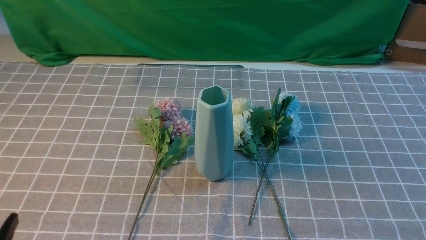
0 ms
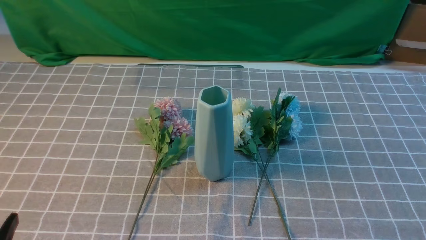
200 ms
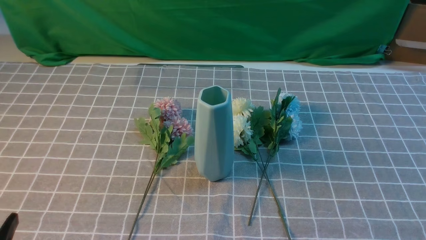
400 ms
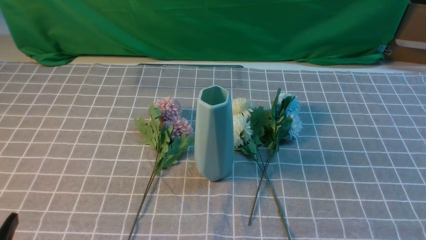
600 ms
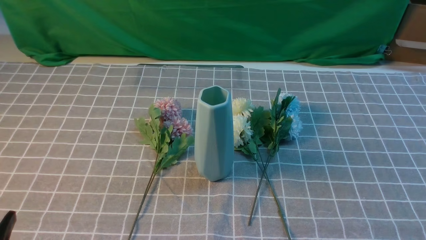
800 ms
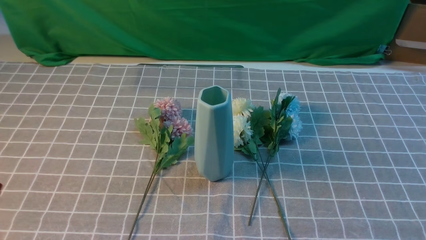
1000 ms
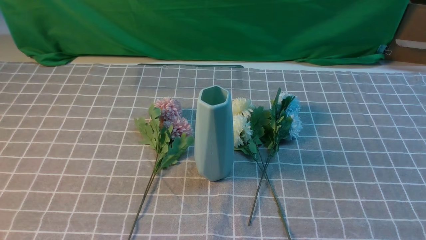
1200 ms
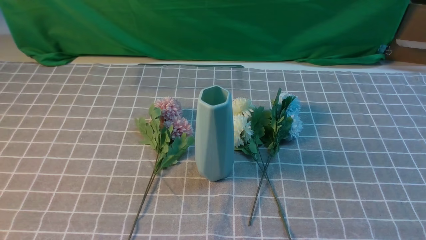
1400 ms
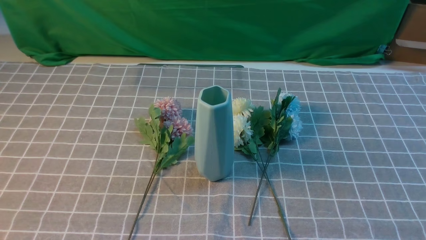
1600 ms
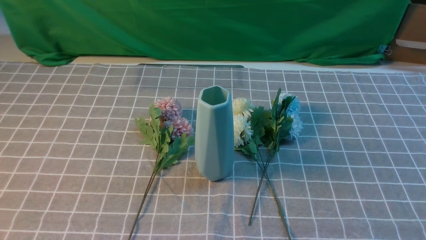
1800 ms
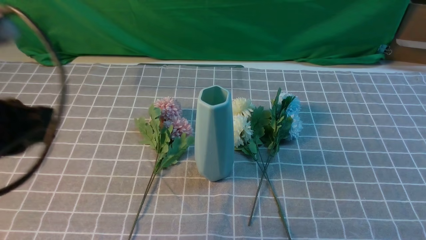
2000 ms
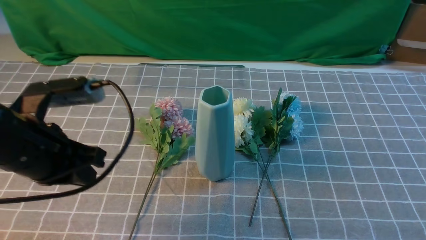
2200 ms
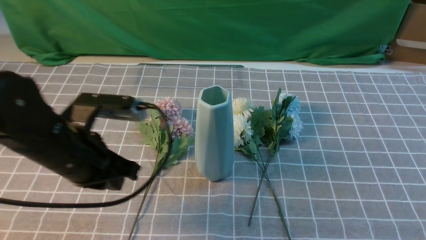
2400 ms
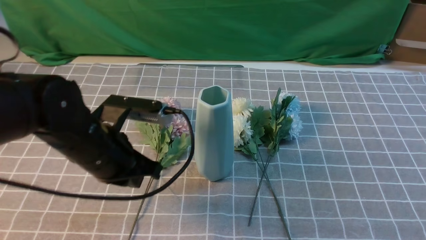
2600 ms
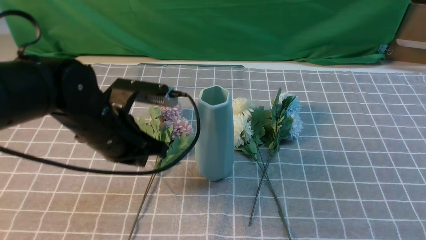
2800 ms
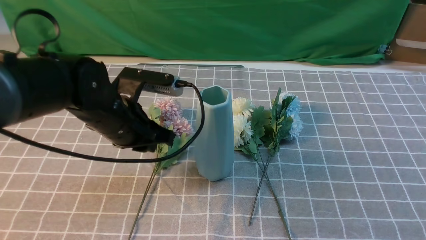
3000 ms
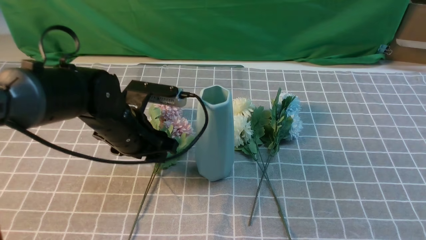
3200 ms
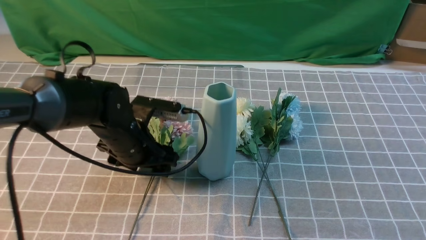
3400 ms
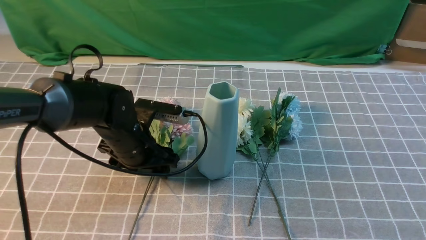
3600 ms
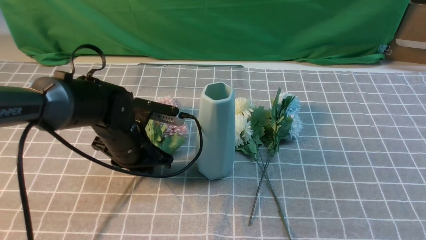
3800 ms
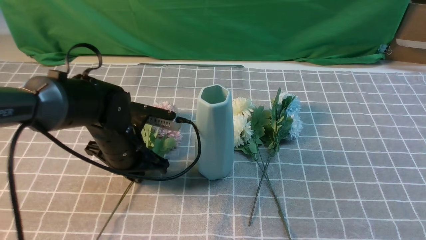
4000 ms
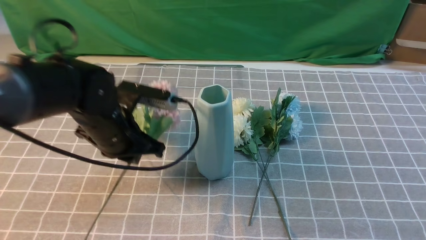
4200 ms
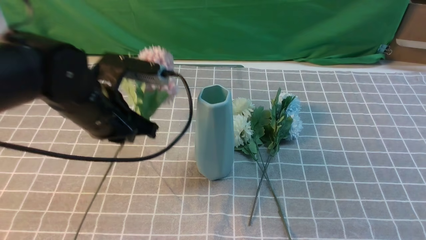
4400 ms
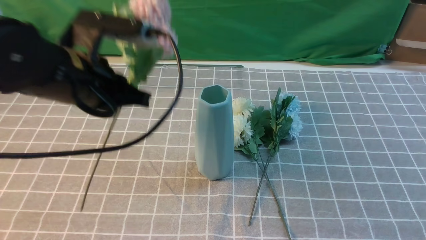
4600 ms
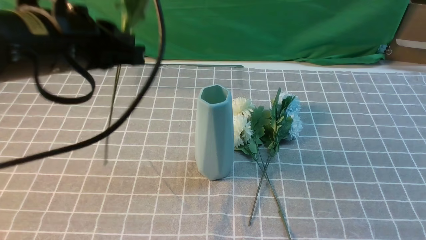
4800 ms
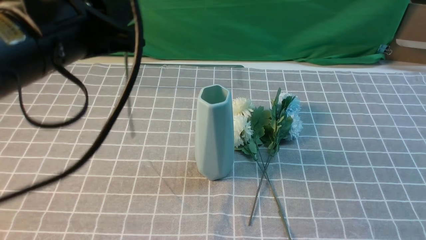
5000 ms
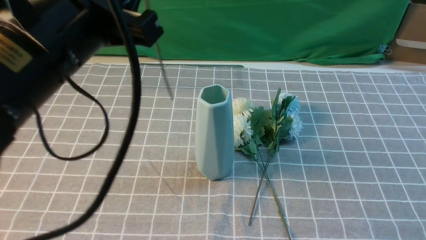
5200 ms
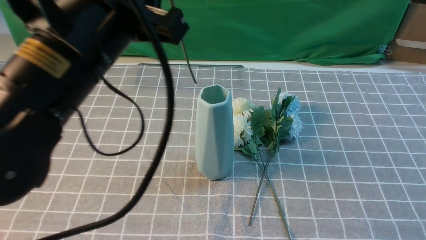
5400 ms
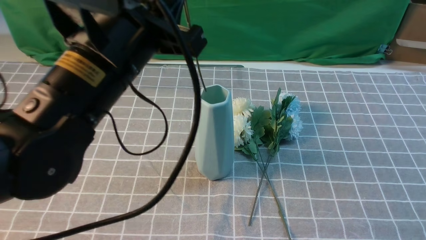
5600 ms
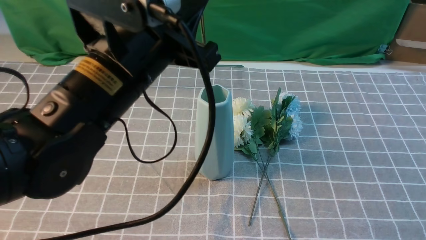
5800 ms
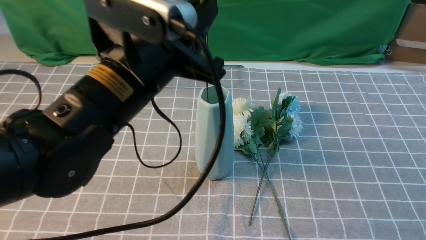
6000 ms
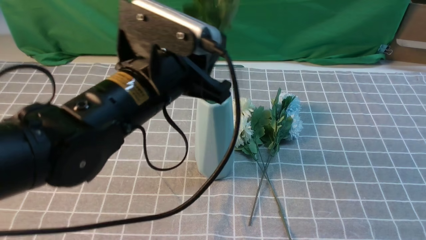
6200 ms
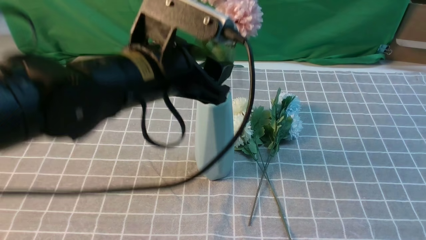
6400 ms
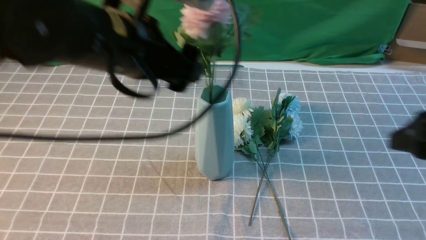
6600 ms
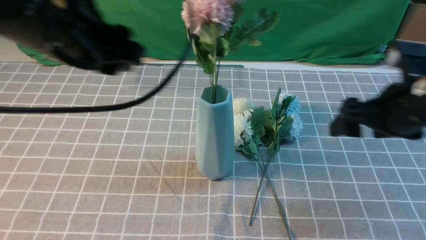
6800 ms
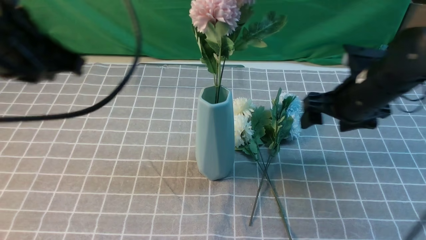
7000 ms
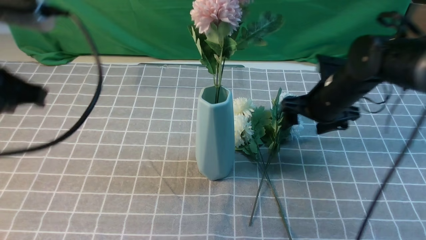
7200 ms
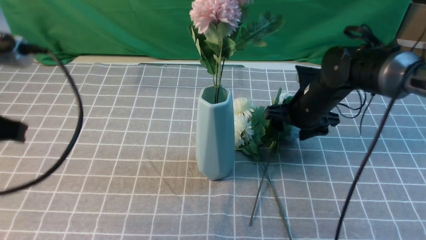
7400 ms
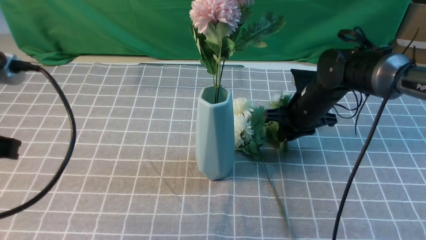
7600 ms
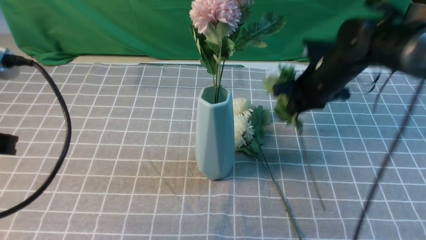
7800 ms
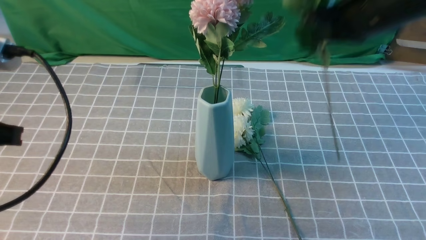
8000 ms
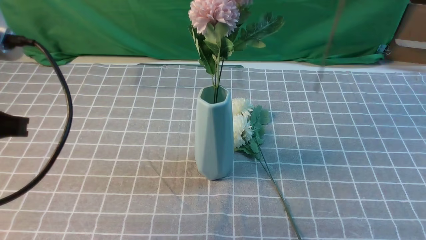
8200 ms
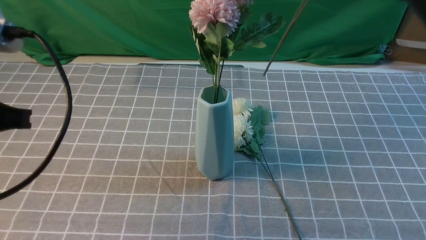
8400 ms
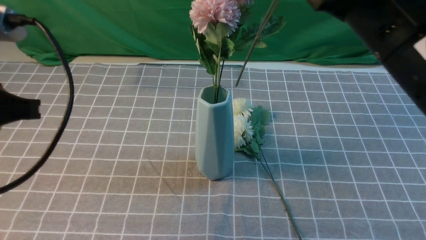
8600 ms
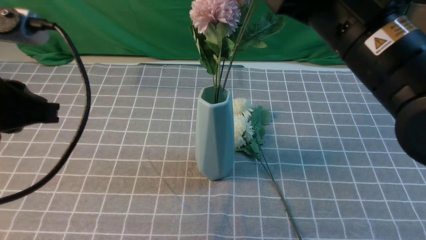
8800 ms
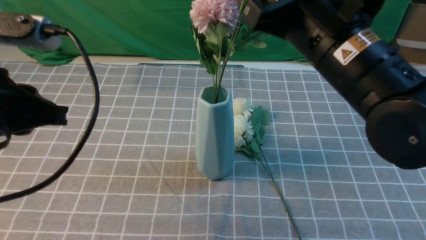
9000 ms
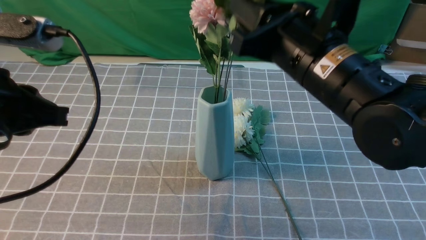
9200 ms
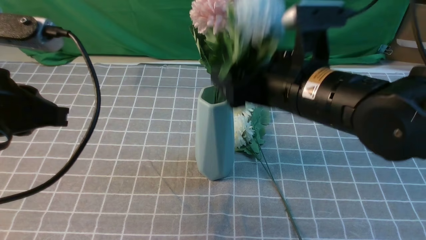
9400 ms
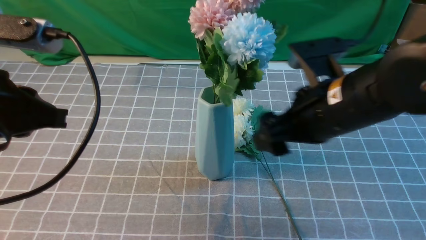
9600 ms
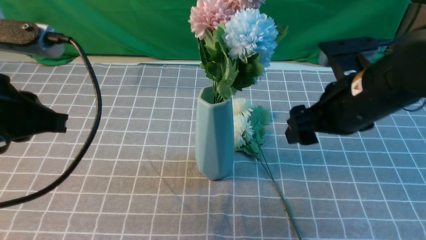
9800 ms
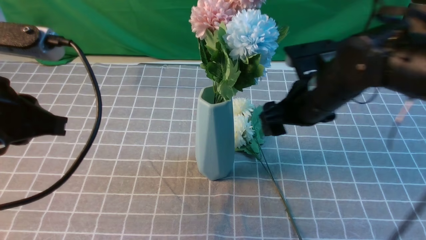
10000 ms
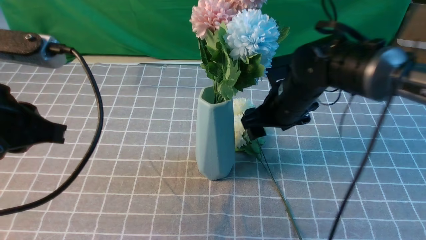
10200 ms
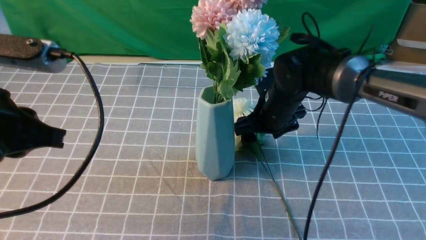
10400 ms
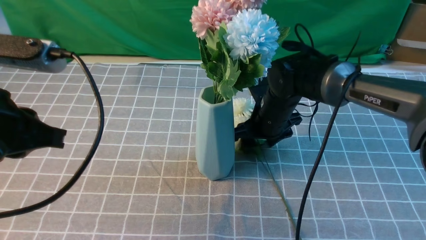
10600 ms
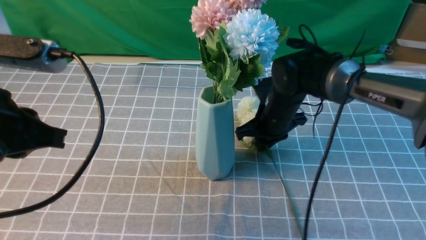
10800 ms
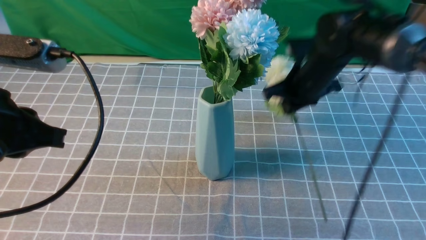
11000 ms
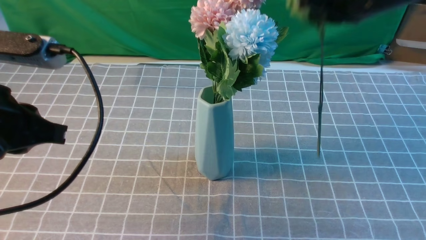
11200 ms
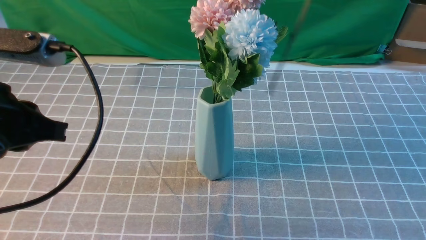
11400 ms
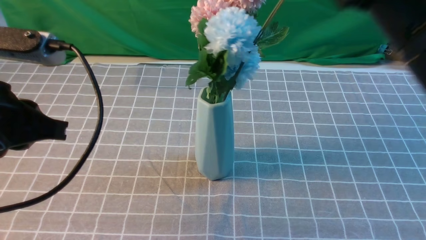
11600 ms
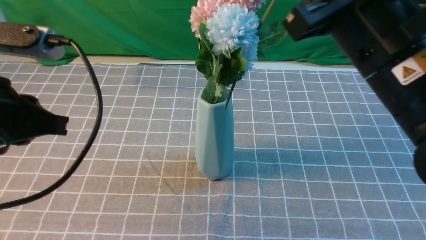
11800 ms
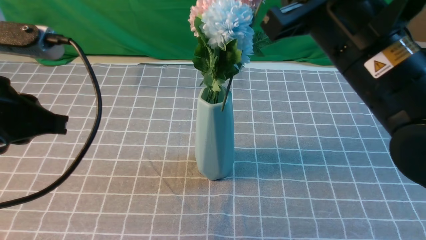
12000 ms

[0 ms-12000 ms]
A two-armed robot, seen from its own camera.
Task of the whole recording: insert the flowers into the vase on the table with the grey tablecloth.
Step, 0 ms to 3800 ms: use the left arm to grab a bunch of fresh flowers.
Step, 4000 ms to 6600 ms: use the left arm to insert the flowers into the vase.
Step, 6800 ms to 7600 ms: use the right arm to grab a bunch of fresh flowers.
Step, 7800 ms to 9400 ms: use the right arm to insert the flowers into the vase.
Step, 9600 ms to 10600 ms: use the right arm to grab a bunch of fresh flowers.
1600 ms to 3000 ms: The left gripper shifts approximately 30 cm forward and to the right. Meanwhile the right gripper shifts approximately 15 cm upward and forward.
3000 ms to 4400 ms: The left gripper moves upward, about 5 cm, and opens, then closes again.
4400 ms to 6000 ms: The left gripper heads to the right and upward, covering about 10 cm.
6000 ms to 7600 ms: The left gripper is displaced to the left and backward by some 20 cm, and opens, then closes once more. The right gripper moves forward, downward and to the left, roughly 35 cm, and opens, then closes again.
7600 ms to 9000 ms: The right gripper goes roughly 25 cm upward and backward.
9000 ms to 10400 ms: The right gripper moves downward and forward, roughly 25 cm, and opens up.
10400 ms to 12000 ms: The right gripper goes roughly 25 cm upward and backward, and closes.

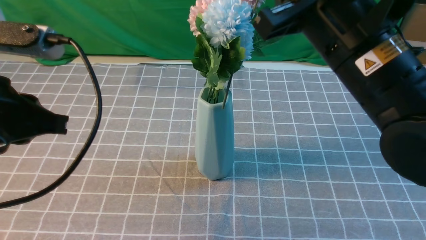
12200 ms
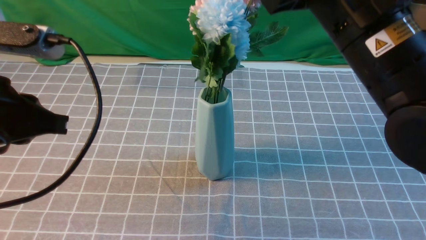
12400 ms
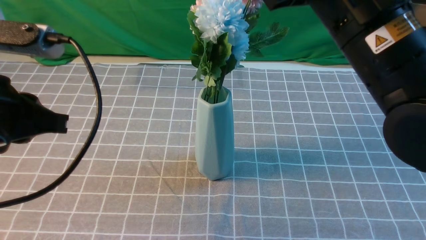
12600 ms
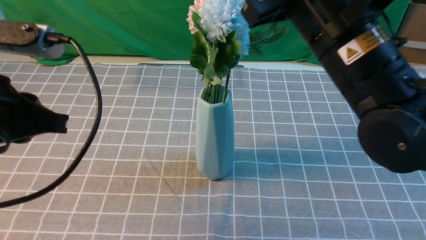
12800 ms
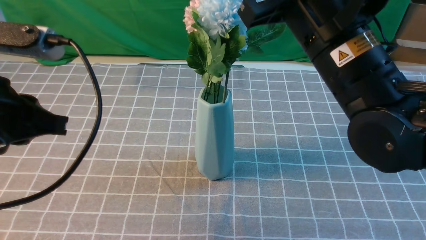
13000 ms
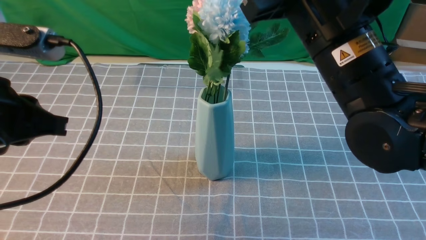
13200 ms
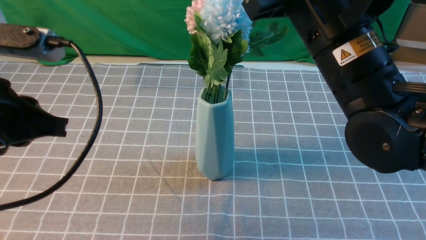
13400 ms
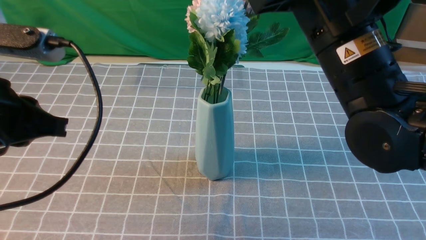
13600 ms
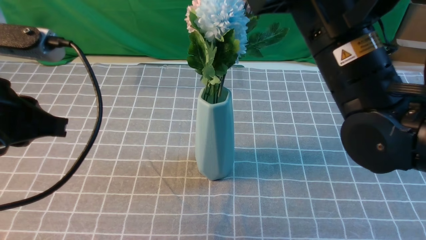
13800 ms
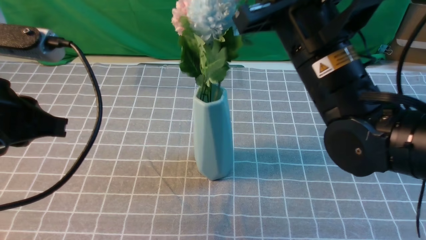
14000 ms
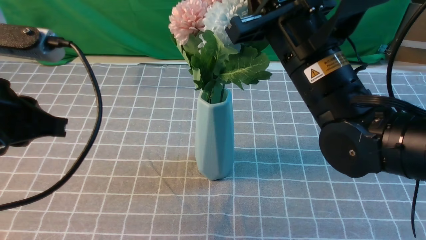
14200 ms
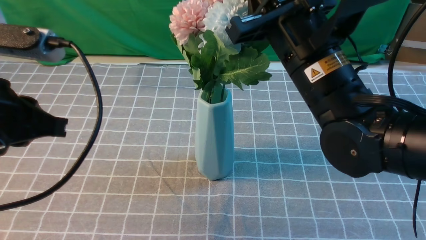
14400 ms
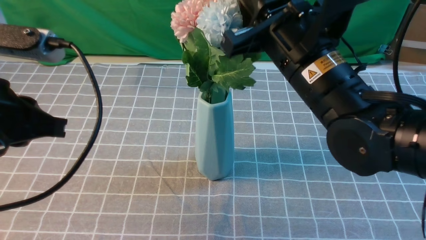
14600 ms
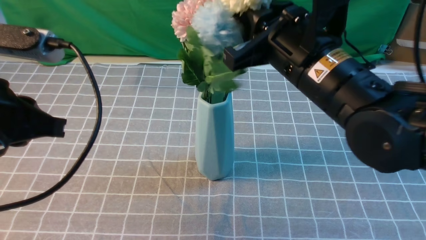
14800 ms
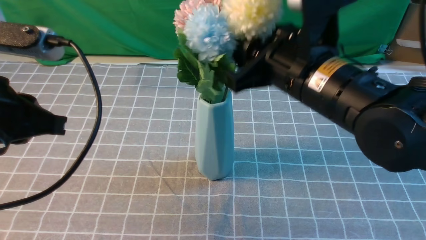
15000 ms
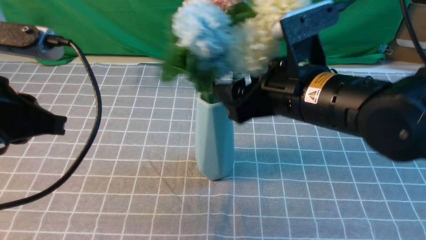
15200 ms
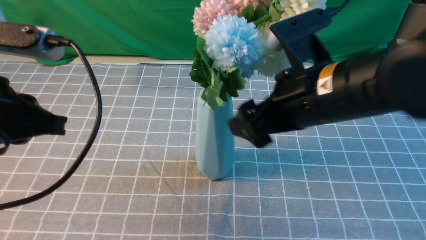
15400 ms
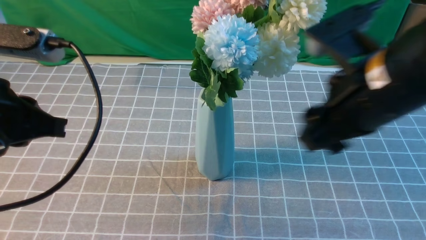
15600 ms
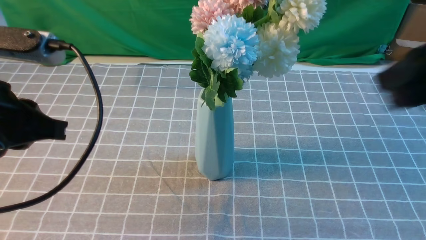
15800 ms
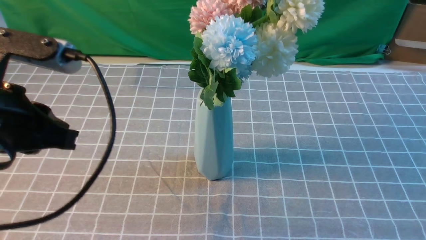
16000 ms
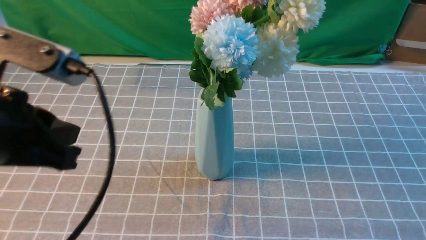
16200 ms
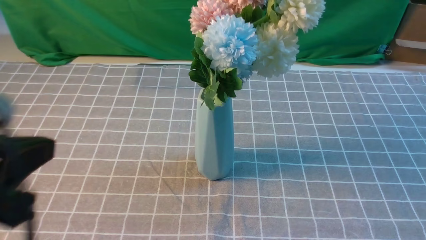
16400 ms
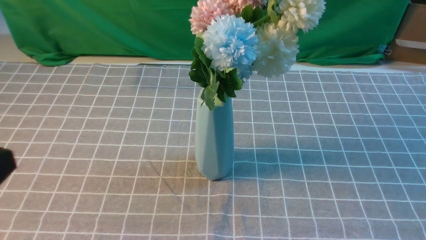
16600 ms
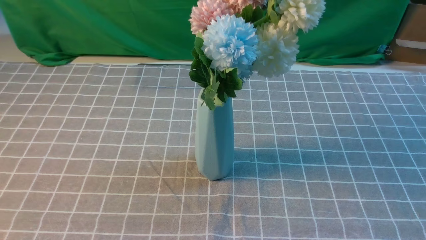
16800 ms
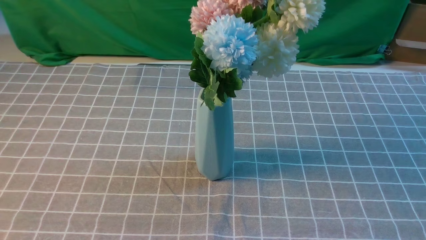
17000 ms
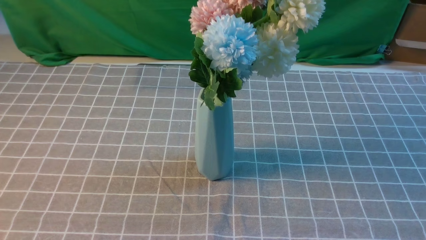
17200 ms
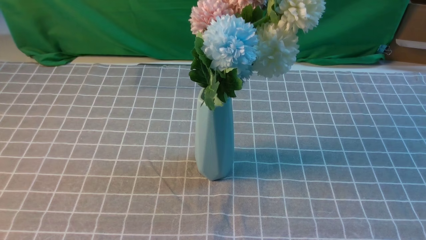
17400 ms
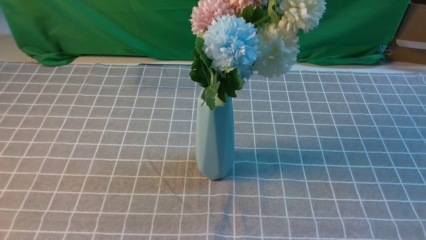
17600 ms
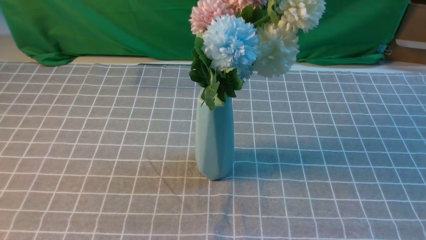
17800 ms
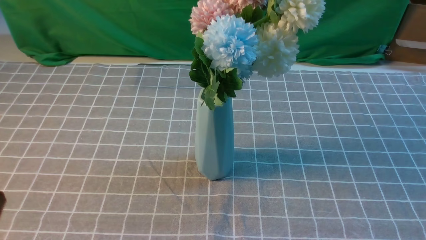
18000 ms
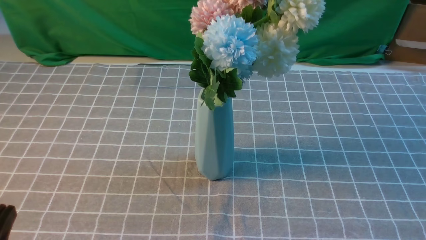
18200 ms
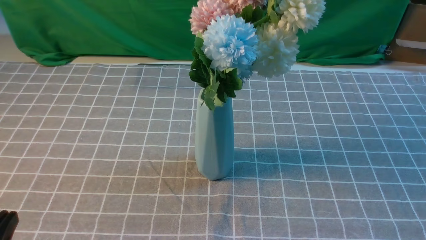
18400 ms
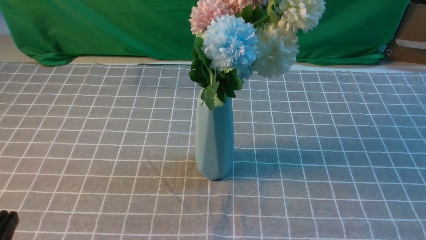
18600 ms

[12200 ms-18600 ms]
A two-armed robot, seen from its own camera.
Task of the whole recording: insert the flowers into the vase on the table with the grey tablecloth.
Step, 12200 ms to 15400 ms: use the right arm to insert the flowers into the vase.
12200 ms to 13800 ms: The grippers move only a little.
13800 ms to 15400 ms: The right gripper opens.
15400 ms to 17000 ms: The left gripper is displaced backward by about 20 cm, while the right gripper goes some 25 cm backward and to the right, and closes.
